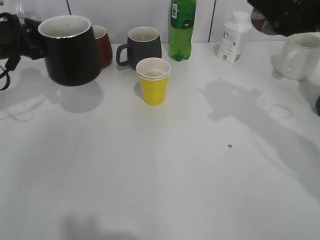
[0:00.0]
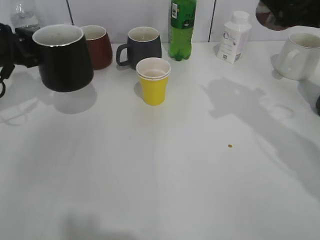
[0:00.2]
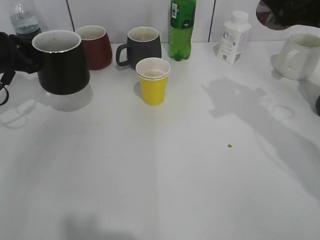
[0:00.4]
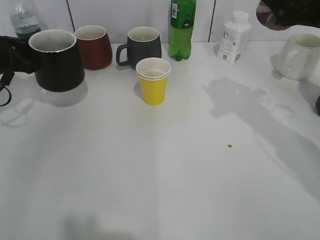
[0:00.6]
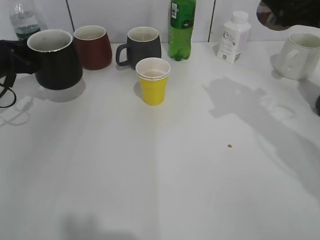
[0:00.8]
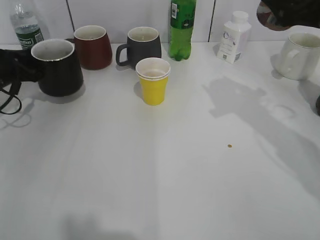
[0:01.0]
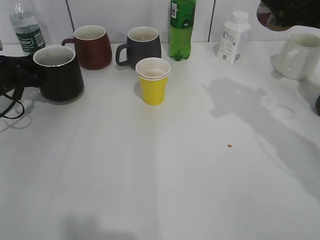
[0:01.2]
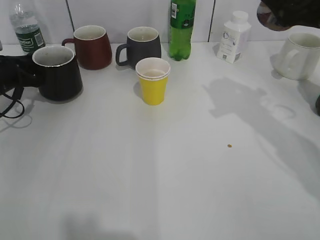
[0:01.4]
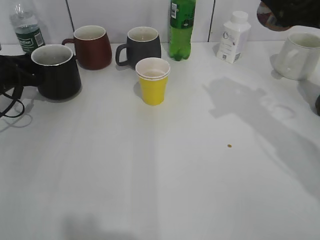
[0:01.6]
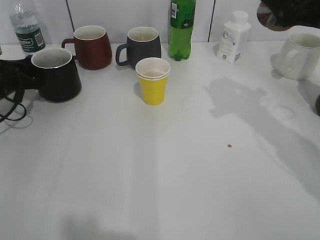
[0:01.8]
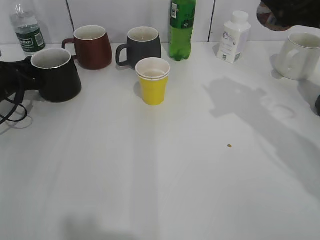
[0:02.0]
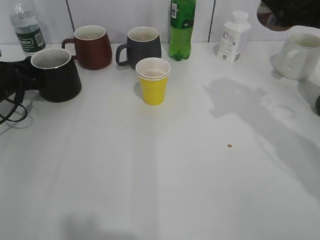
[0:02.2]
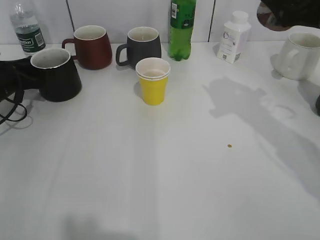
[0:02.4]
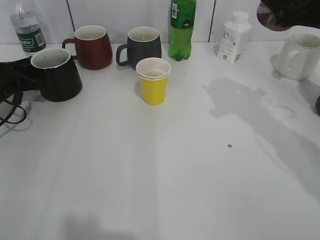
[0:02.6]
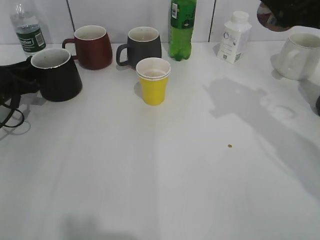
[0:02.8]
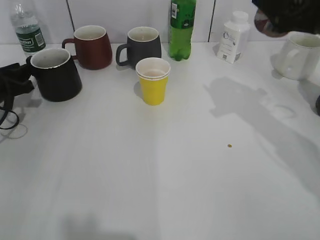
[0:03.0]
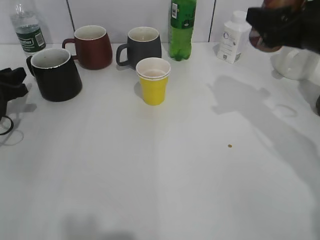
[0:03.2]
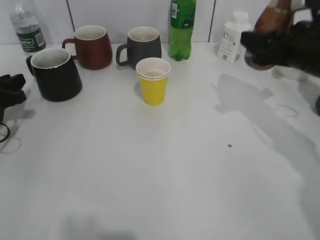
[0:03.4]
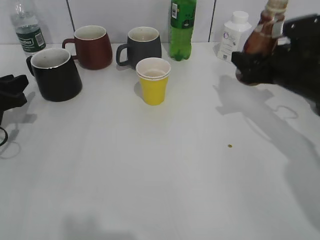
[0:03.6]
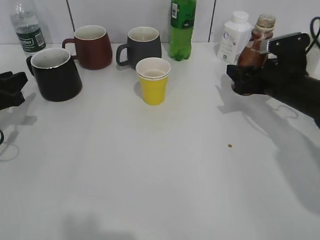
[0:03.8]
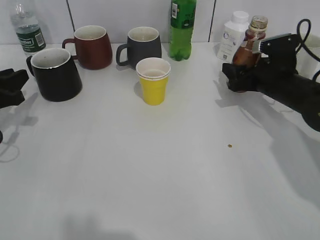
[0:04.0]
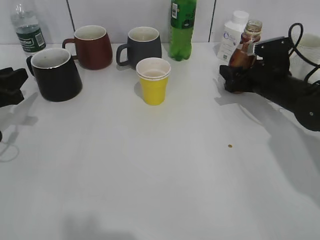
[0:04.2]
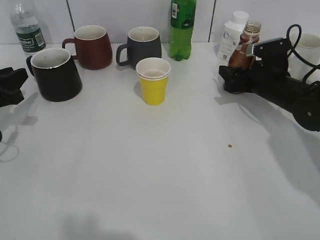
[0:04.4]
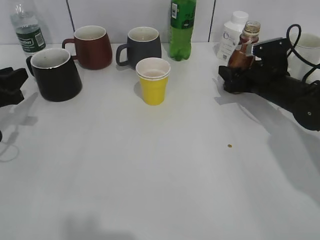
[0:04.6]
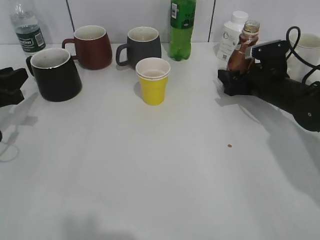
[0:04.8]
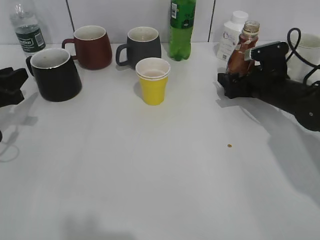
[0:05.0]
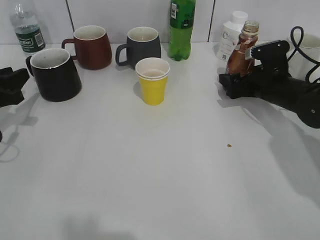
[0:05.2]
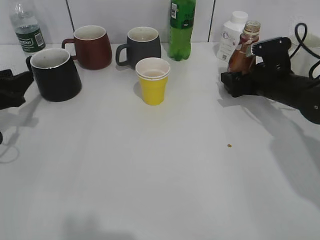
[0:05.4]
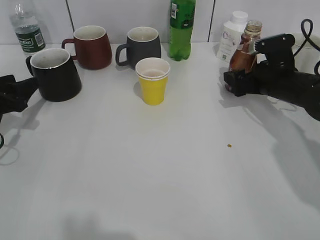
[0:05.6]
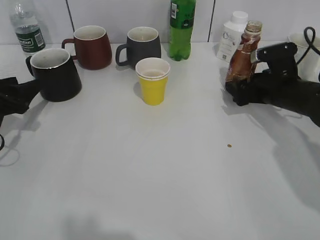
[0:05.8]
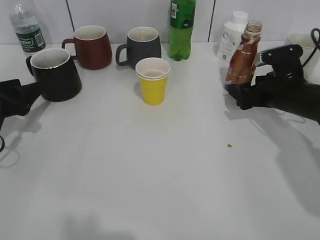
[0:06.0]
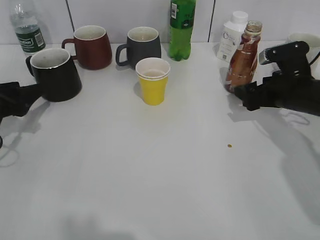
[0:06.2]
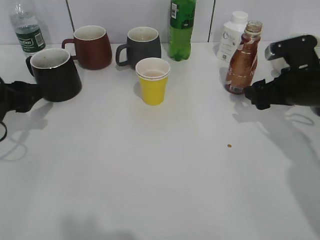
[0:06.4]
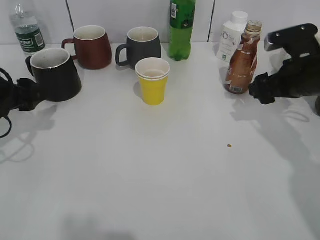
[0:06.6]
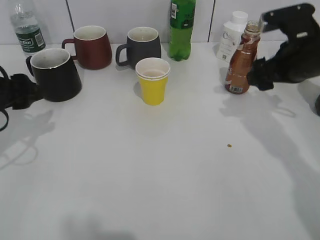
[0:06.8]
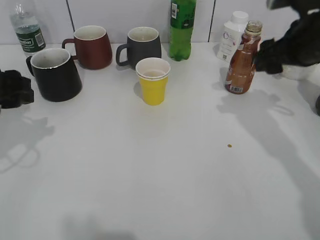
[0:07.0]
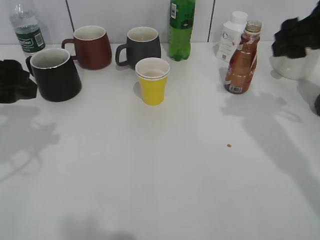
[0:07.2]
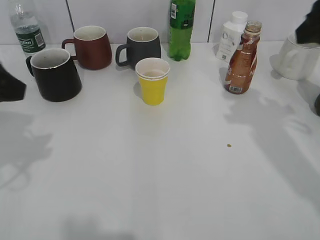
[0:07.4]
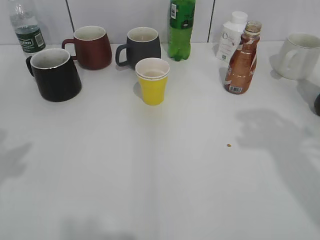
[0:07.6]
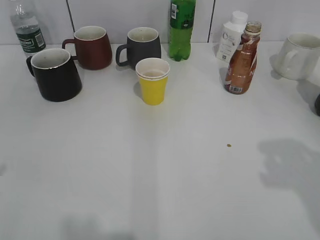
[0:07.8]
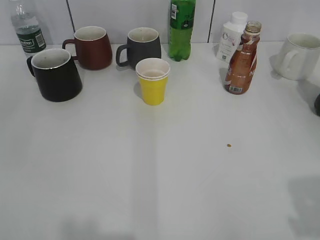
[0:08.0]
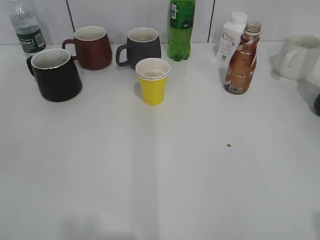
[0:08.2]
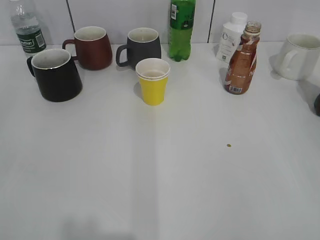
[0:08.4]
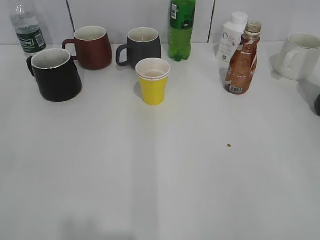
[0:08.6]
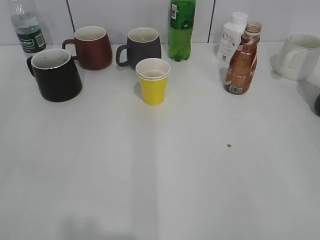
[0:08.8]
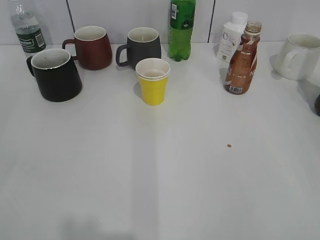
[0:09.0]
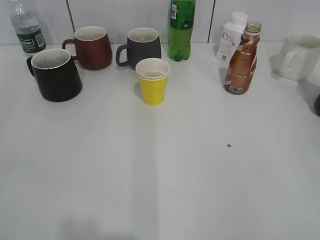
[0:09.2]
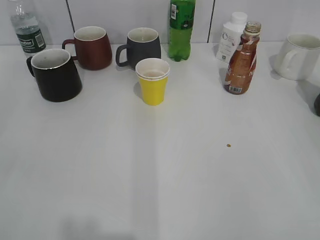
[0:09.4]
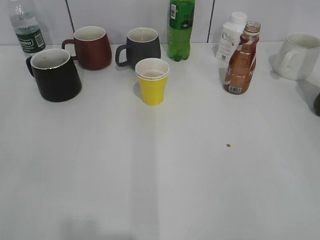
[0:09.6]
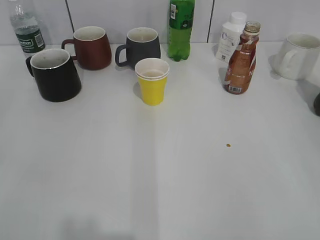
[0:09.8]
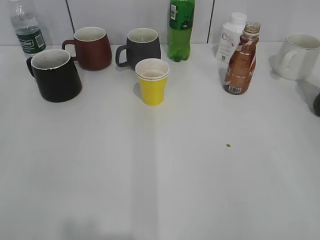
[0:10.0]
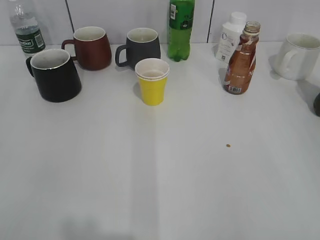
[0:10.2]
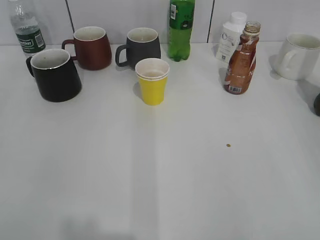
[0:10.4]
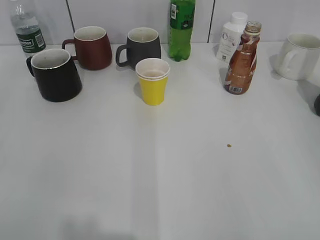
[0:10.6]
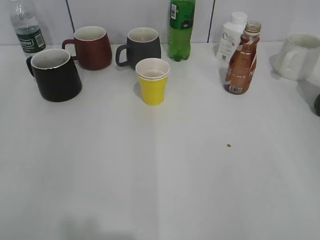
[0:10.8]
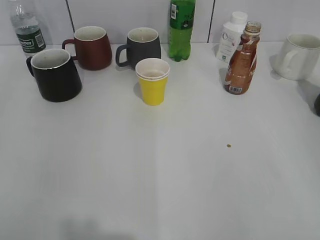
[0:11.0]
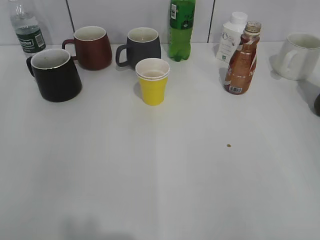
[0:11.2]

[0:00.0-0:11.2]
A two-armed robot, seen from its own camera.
Step, 0:00.0 to 0:03.2: Place the black cup on the table with left gripper.
Step, 0:03.4 to 0:05.6: Place the coffee bottle on the table with right gripper.
0:00.0 to 0:01.6: The left gripper goes approximately 10 cm downward and to the left.
0:01.6 to 0:03.2: The left gripper changes place by some 5 cm, and opens its fingers.
0:03.2 to 0:04.8: The left gripper changes place by roughly 5 cm. The right gripper travels downward and forward by roughly 20 cm.
0:04.8 to 0:06.4: The right gripper moves backward, some 5 cm; the left gripper opens its fingers.
0:06.4 to 0:08.0: The two grippers go roughly 30 cm backward and upward. The right gripper closes up.

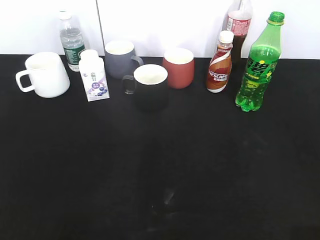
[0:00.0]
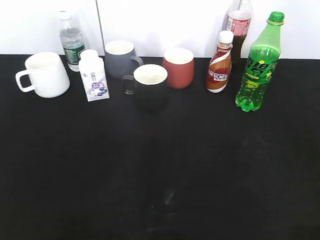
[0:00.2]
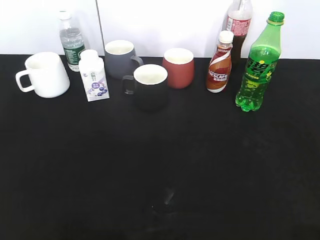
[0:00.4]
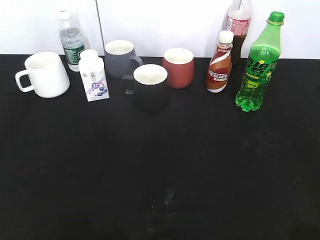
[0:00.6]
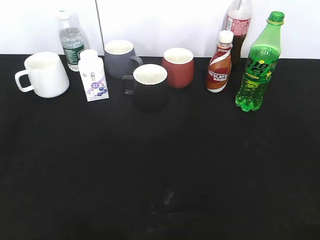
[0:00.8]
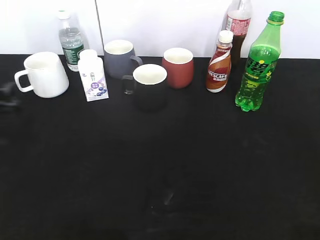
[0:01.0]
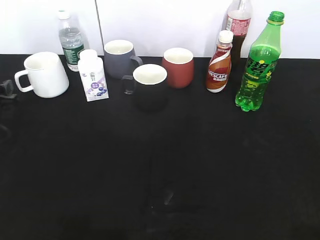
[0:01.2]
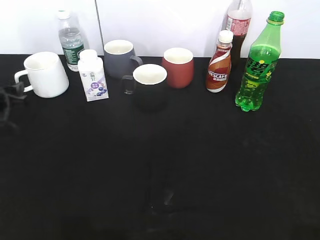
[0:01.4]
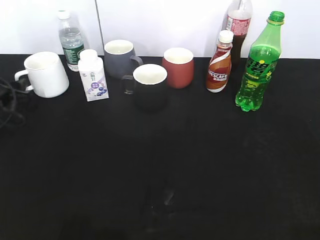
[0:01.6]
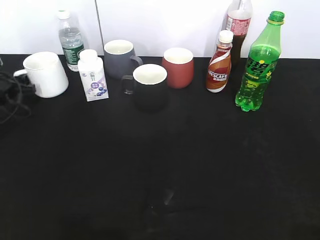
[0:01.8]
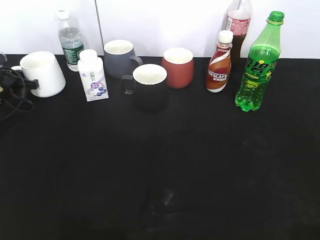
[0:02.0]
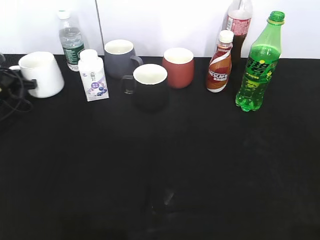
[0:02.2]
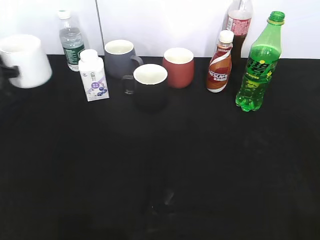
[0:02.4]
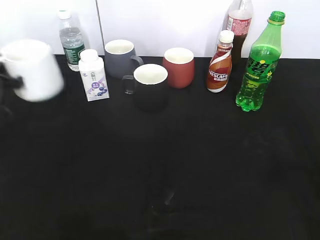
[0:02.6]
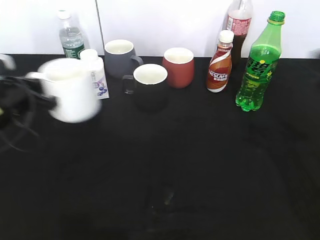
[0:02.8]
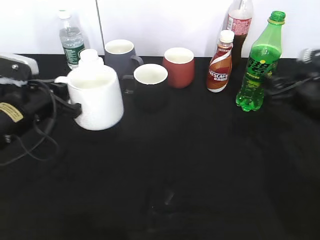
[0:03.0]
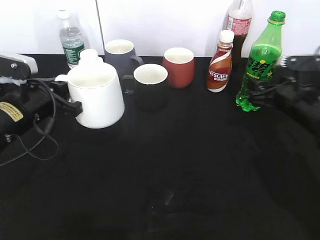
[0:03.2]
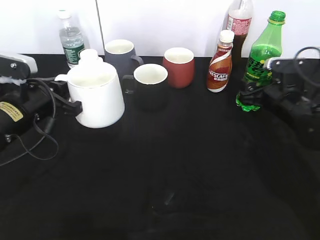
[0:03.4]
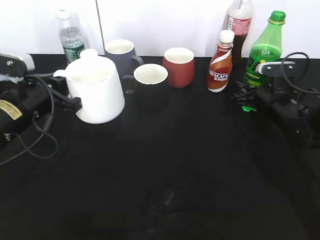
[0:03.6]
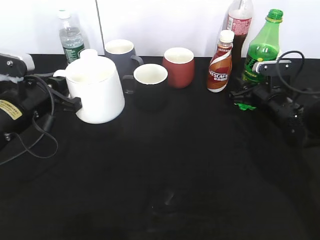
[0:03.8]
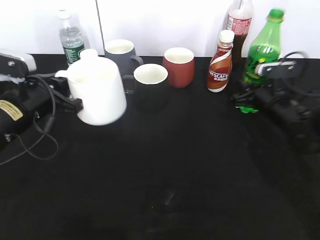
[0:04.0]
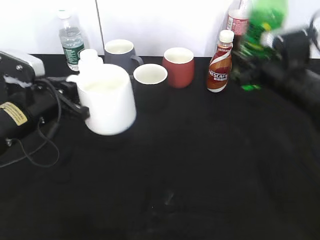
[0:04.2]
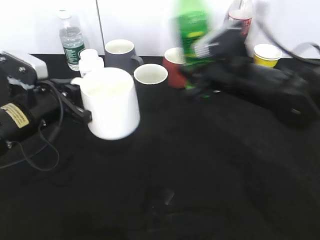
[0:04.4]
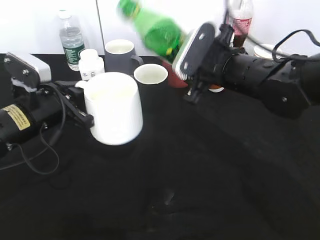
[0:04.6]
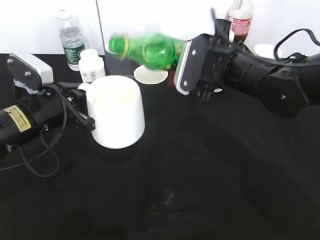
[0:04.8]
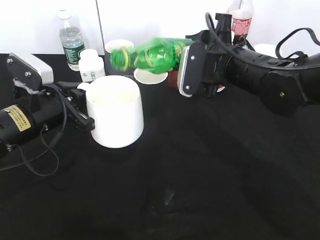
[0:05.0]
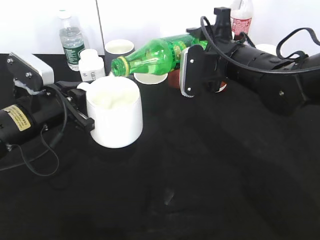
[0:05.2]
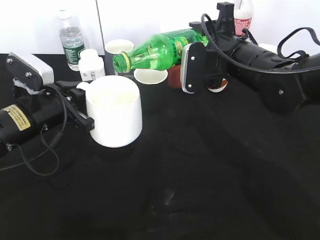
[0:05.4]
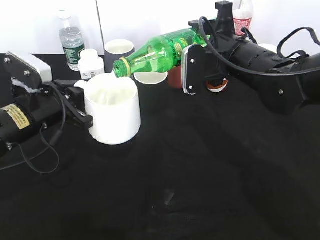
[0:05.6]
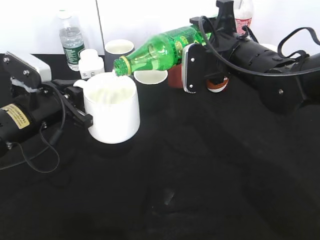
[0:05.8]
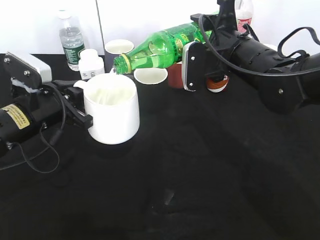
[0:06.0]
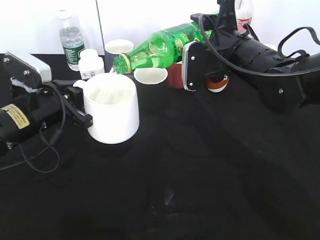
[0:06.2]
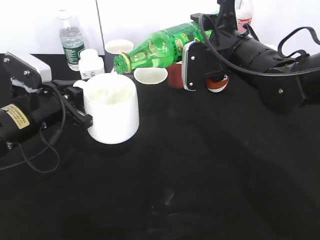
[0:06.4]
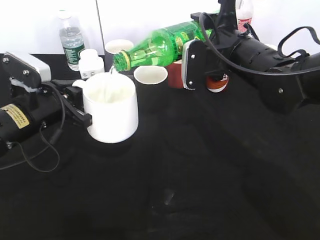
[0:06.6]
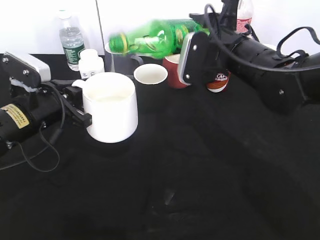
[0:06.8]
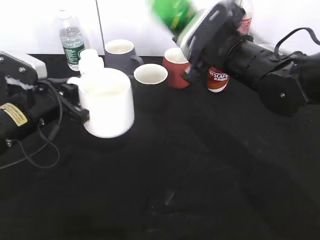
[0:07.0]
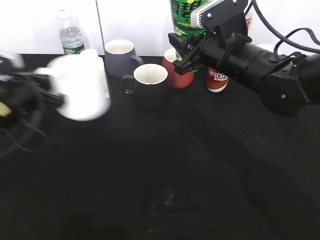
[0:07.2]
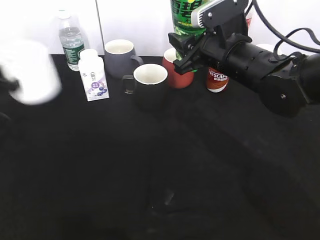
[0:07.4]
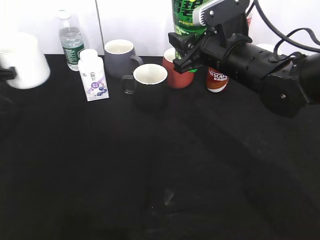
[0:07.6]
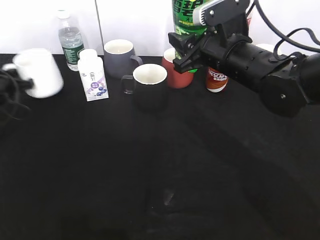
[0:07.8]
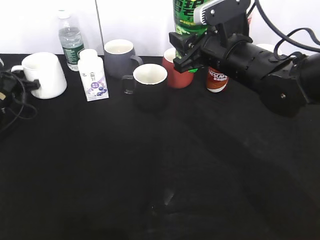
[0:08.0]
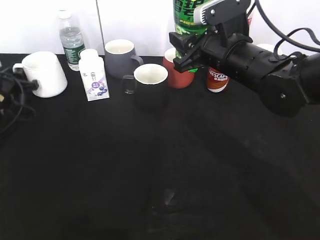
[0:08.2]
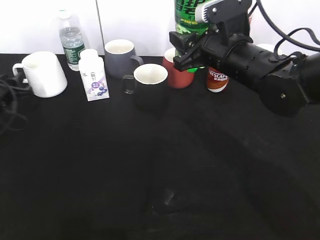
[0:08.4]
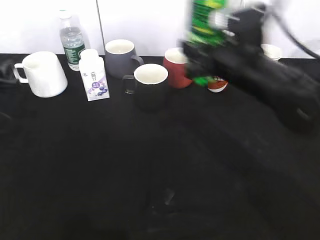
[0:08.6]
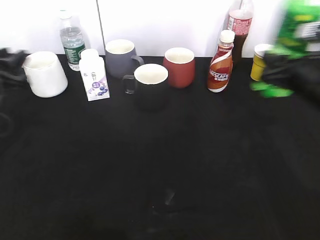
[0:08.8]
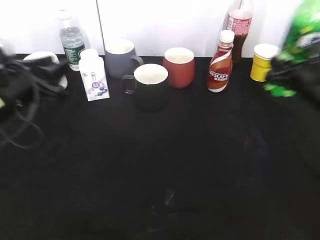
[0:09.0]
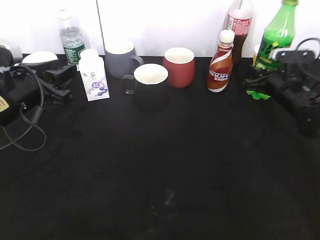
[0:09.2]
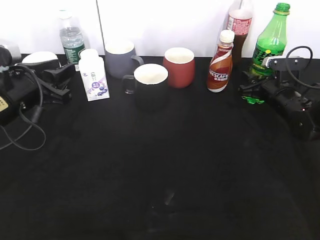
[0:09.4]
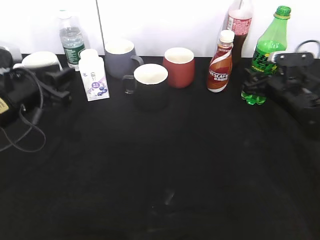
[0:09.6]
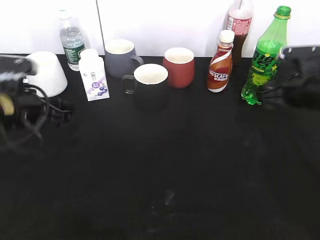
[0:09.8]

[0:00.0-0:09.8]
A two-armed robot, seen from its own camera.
Step, 0:00.0 to 0:02.0: Grasp the white cup with left gripper.
Step, 0:02.2 to 0:03.0: Lift the white cup with left gripper.
Step, 0:03.2 to 0:03.8: Grasp the bottle with sprite with right gripper.
Step, 0:04.0 to 0:06.8: Pour the sprite from bottle to cup with right gripper.
Step, 0:07.0 to 0:08.2: Place the white cup on the table with left gripper.
Step, 0:08.4 to 0:09.6: Place the sprite bottle on the table with right gripper.
0:00.0 to 0:01.4: The left gripper moves forward and downward, approximately 40 cm.
0:01.4 to 0:02.8: The left gripper is displaced to the right, backward and upward by about 15 cm, and closes. The right gripper shifts approximately 25 cm forward.
0:02.8 to 0:04.2: The left gripper changes place by approximately 5 cm. Meanwhile the right gripper goes roughly 15 cm forward, to the left and downward, and closes its fingers.
0:04.2 to 0:05.6: The right gripper moves to the left, about 10 cm.
0:07.0 to 0:08.4: The left gripper travels to the left, forward and downward by about 20 cm, and opens.
0:08.4 to 0:09.8: The left gripper moves to the right, backward and upward, about 15 cm, while the right gripper shifts approximately 15 cm to the right and downward, and opens.

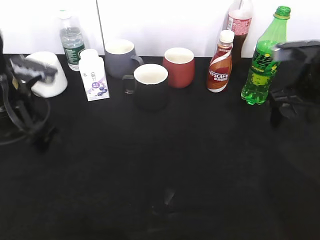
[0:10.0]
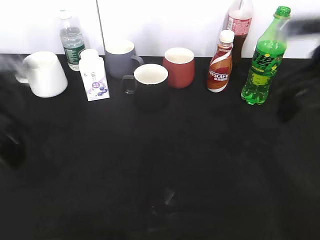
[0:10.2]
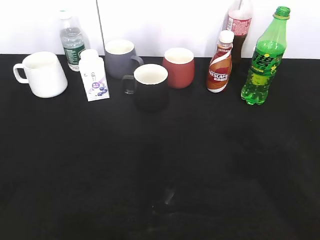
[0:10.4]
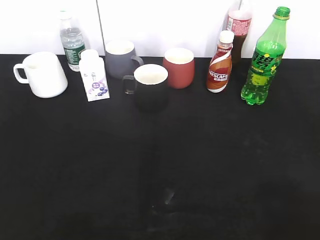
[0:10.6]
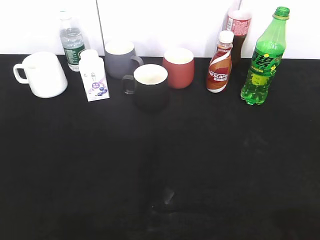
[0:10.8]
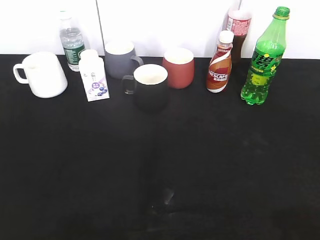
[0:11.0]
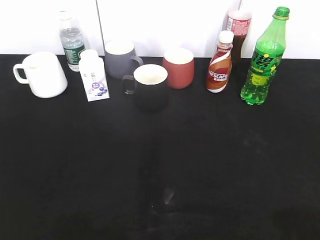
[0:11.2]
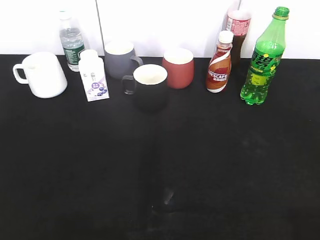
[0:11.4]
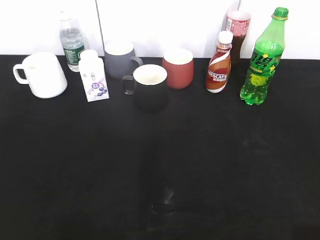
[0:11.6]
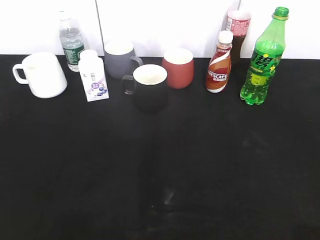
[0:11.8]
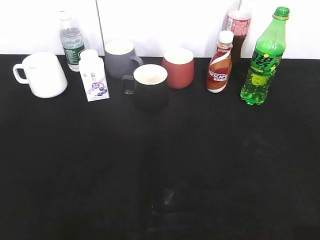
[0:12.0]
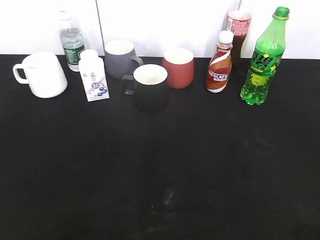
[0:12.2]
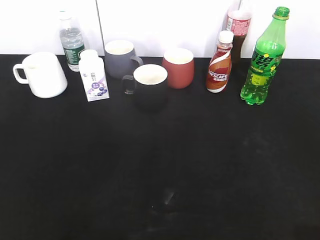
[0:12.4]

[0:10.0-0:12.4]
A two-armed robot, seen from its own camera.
0:10.0 to 0:11.2: Both grippers travel together backward, about 30 cm.
